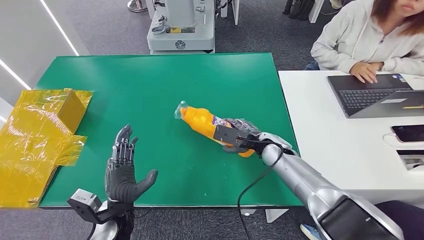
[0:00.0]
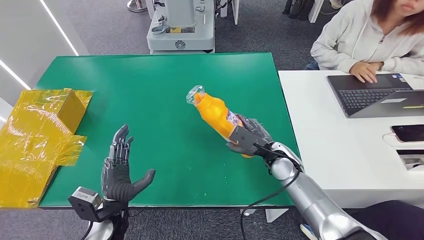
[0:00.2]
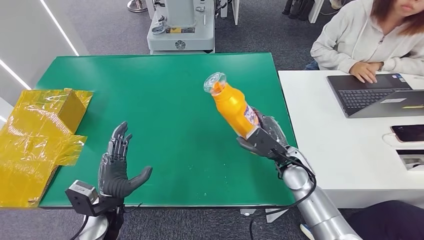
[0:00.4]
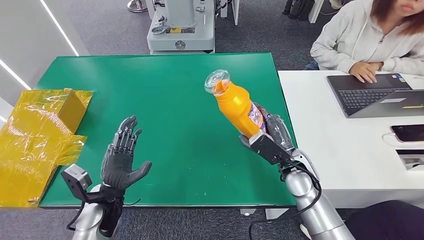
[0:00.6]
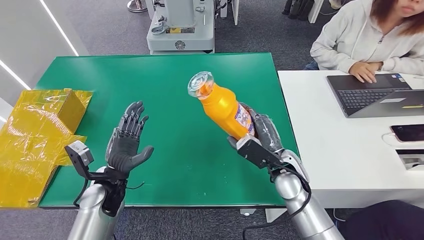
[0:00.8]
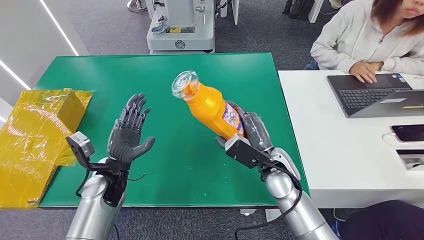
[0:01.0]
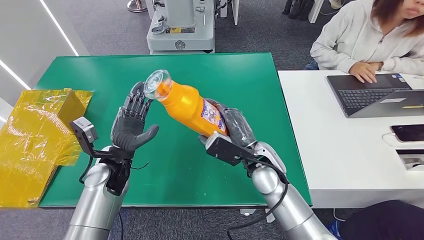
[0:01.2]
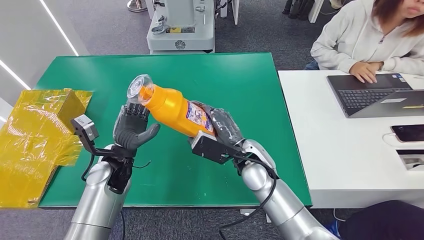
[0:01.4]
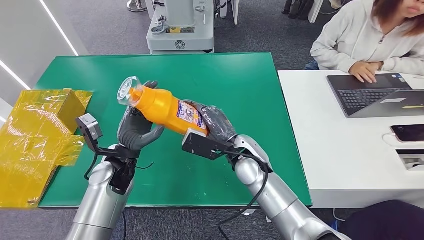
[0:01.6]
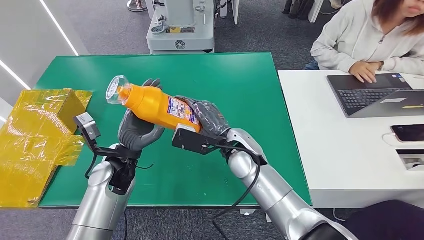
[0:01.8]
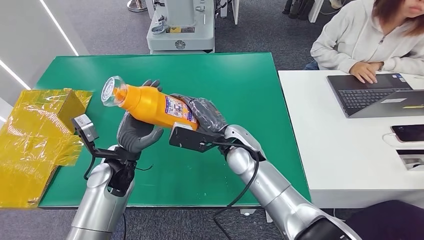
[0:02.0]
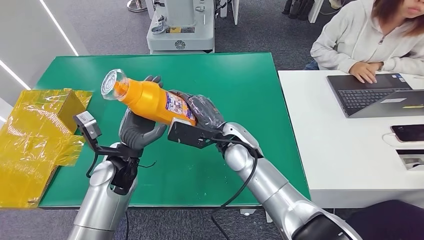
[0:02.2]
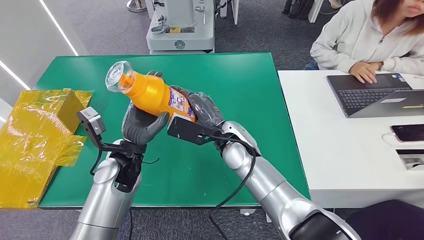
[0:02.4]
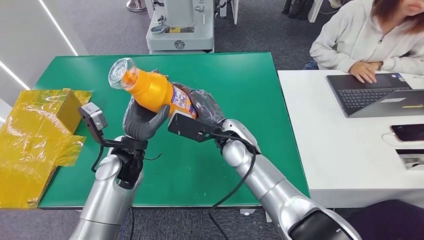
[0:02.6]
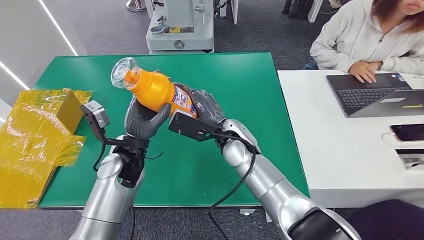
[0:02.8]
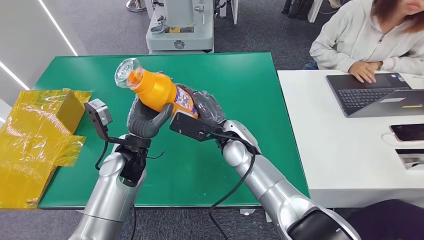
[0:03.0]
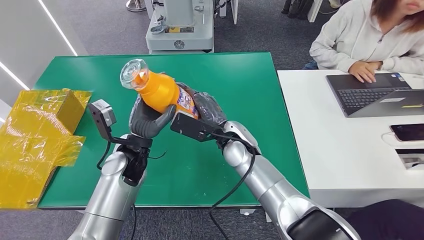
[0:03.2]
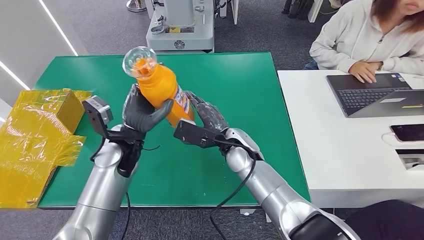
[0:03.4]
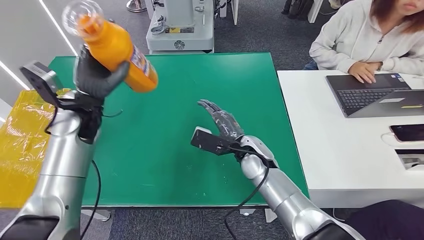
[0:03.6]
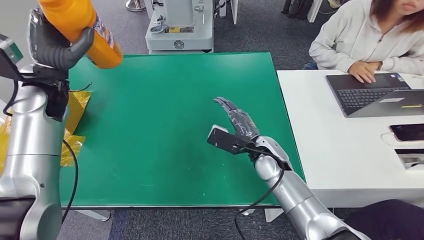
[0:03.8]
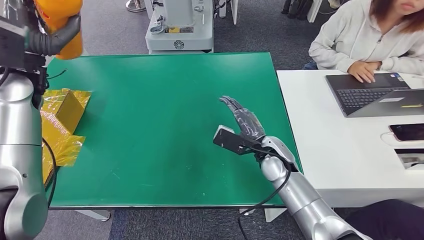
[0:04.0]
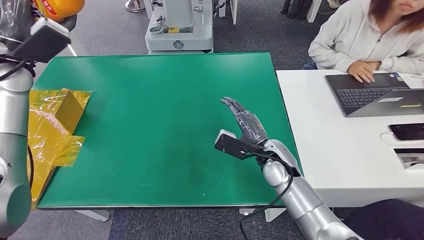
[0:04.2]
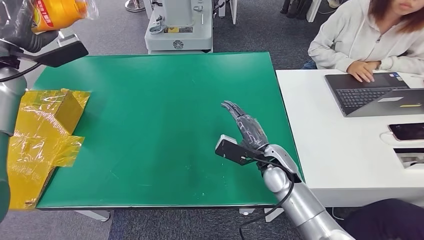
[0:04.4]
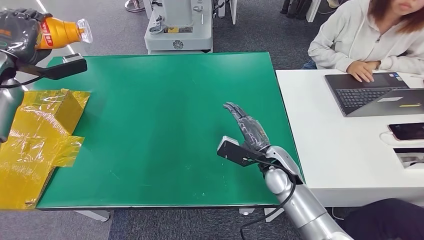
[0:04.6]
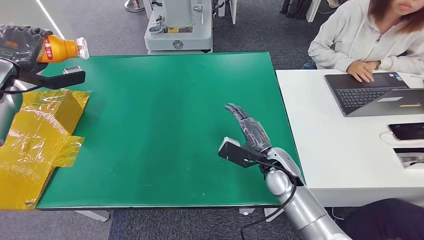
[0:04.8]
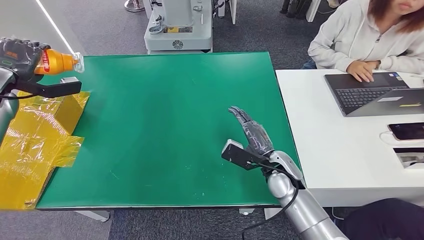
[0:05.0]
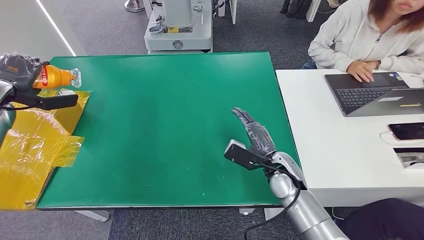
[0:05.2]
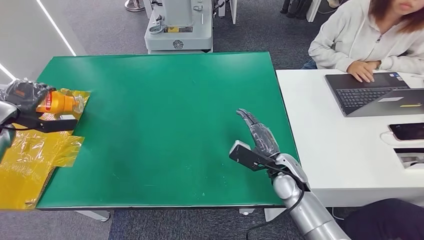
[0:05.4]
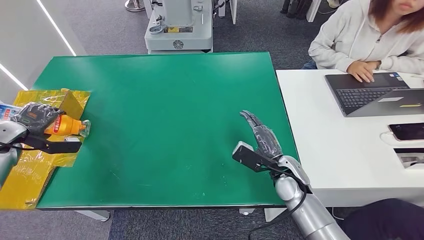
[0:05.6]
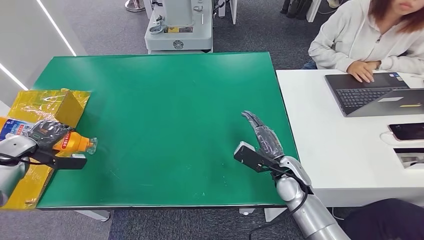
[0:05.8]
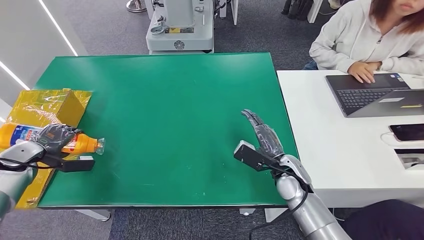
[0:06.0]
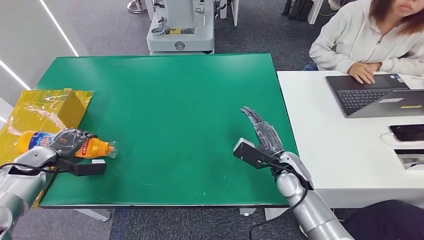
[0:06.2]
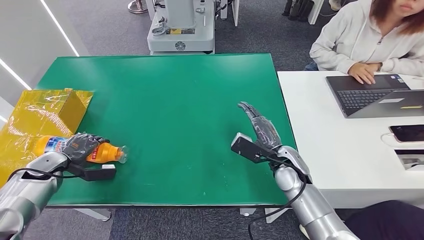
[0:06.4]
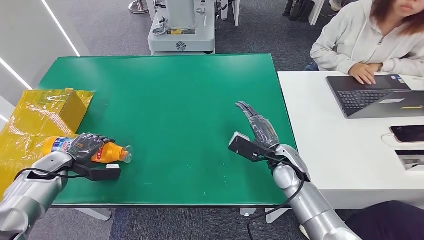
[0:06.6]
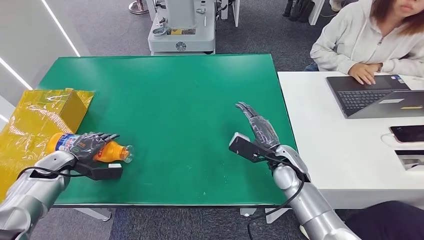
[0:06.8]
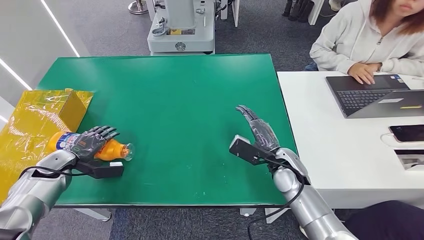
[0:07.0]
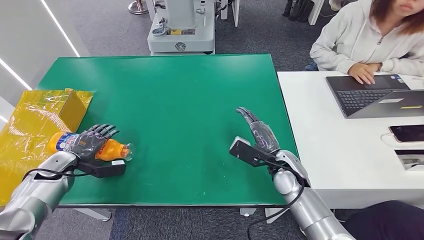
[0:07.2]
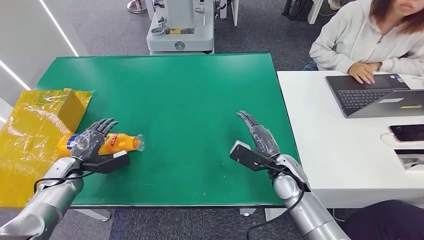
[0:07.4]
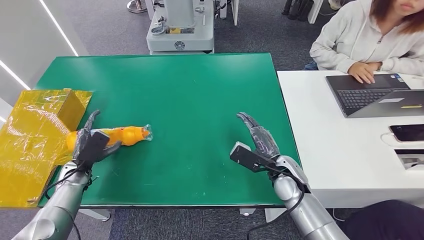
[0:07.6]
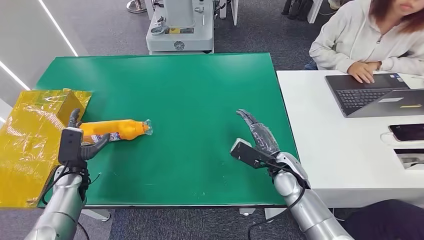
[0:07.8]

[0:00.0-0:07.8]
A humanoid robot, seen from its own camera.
Step, 0:01.4 to 0:07.6: Turn the bottle to the front side.
0:00.0 to 0:01.6: The right hand moves to the left, upward and backward, roughly 15 cm, while the left hand heads forward and upward, covering approximately 15 cm.
0:01.6 to 0:03.2: The left hand moves roughly 5 cm.
0:06.2 to 0:07.8: The left hand moves to the right and downward, some 15 cm.

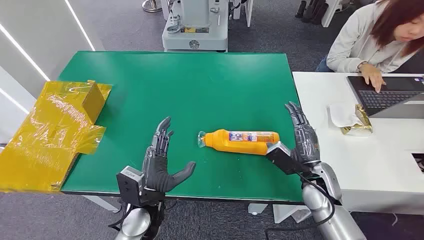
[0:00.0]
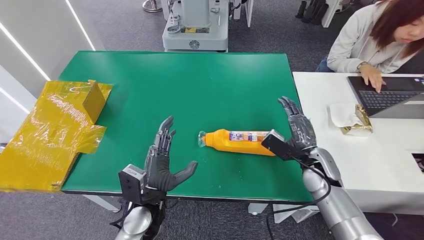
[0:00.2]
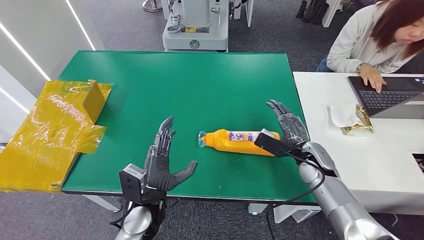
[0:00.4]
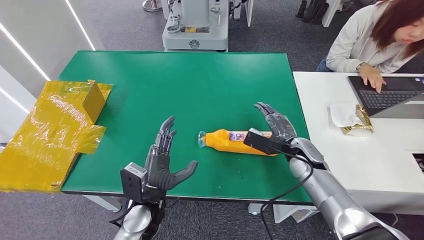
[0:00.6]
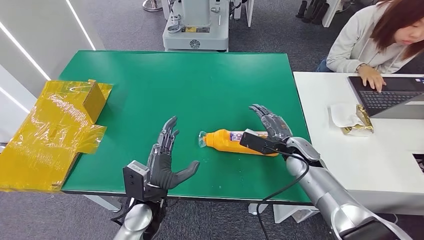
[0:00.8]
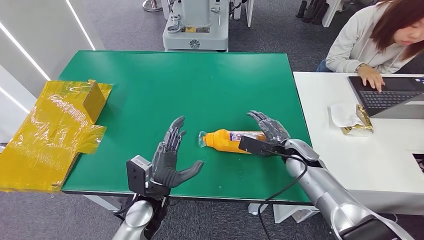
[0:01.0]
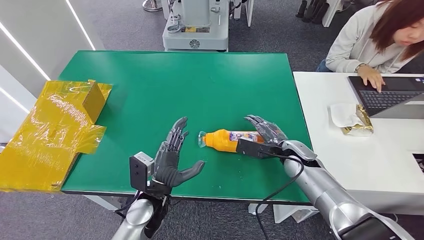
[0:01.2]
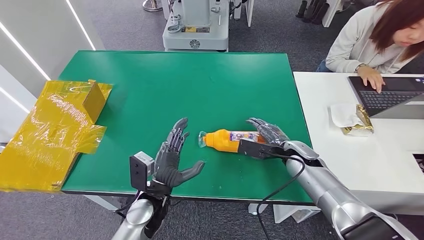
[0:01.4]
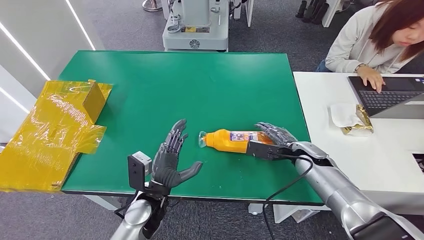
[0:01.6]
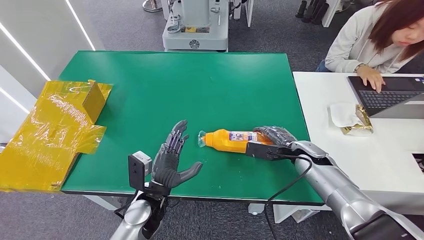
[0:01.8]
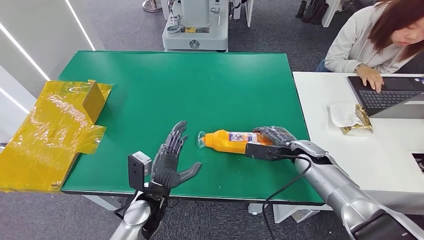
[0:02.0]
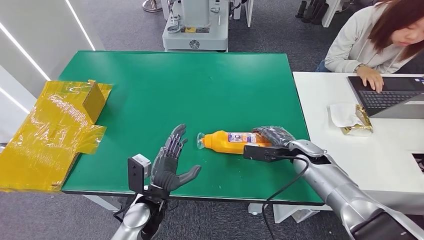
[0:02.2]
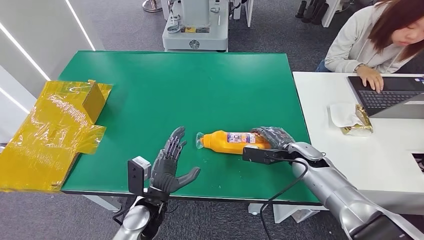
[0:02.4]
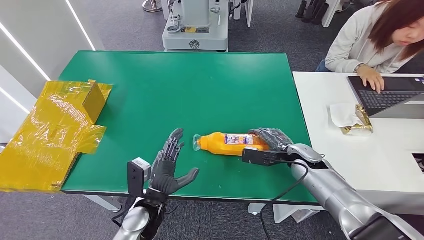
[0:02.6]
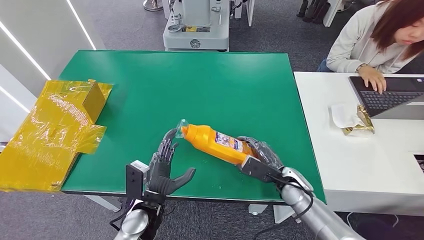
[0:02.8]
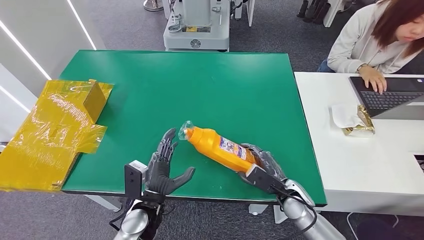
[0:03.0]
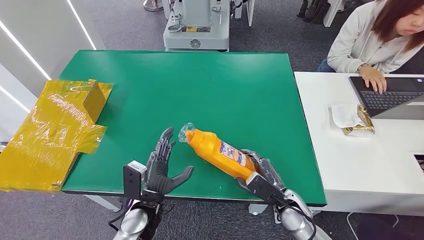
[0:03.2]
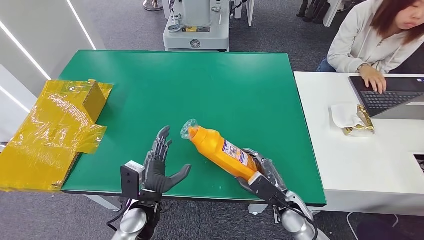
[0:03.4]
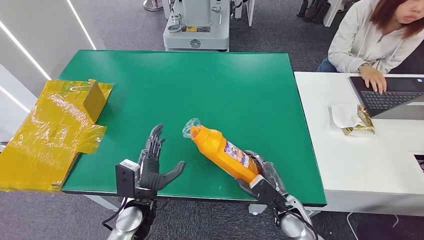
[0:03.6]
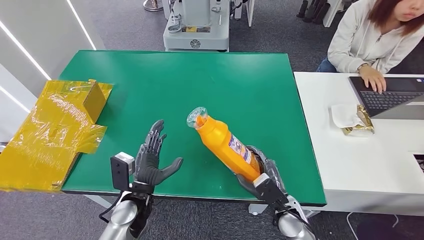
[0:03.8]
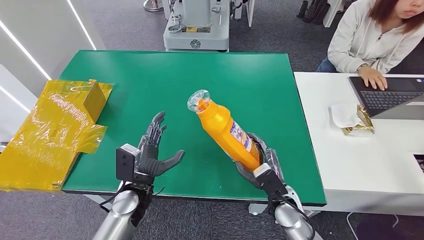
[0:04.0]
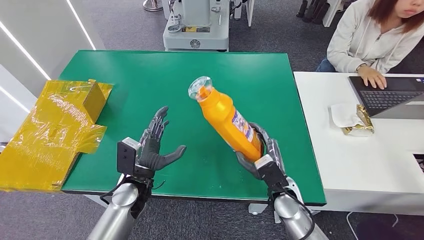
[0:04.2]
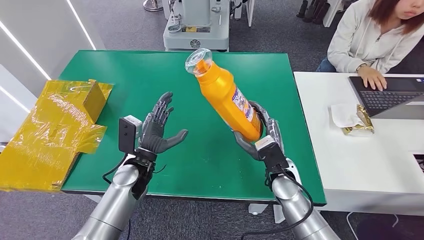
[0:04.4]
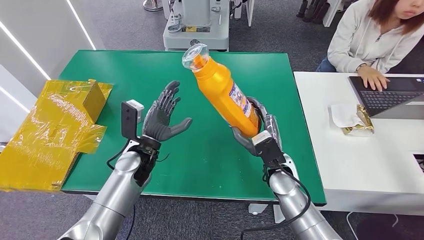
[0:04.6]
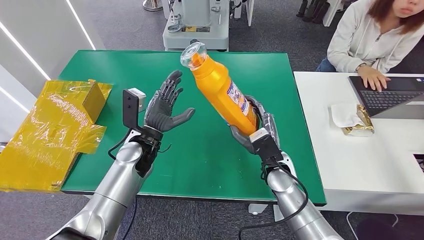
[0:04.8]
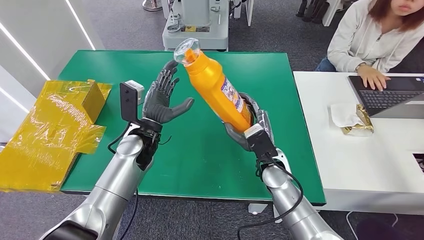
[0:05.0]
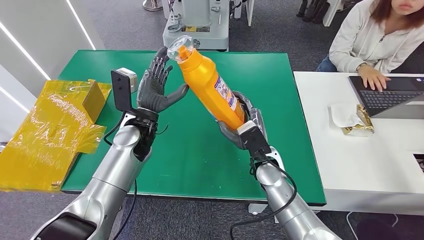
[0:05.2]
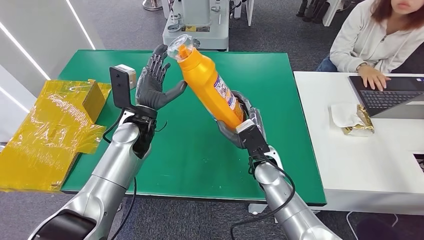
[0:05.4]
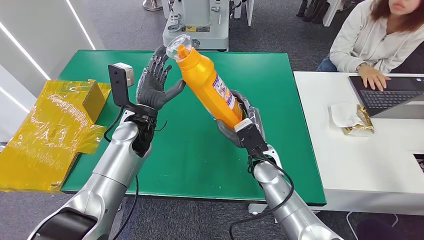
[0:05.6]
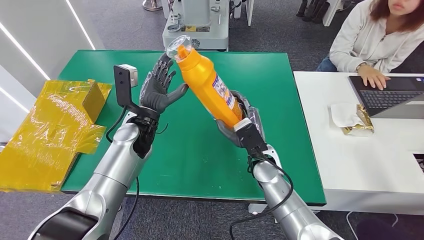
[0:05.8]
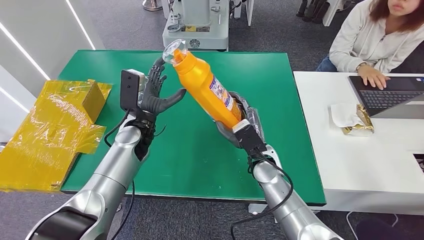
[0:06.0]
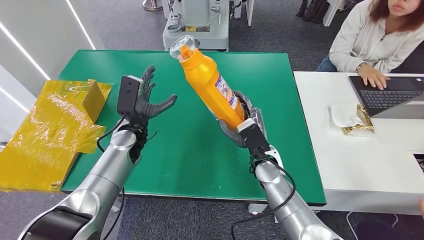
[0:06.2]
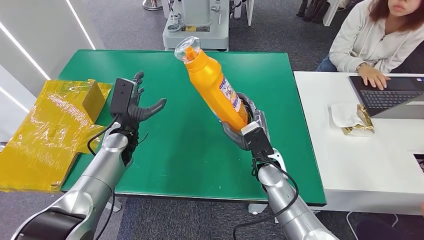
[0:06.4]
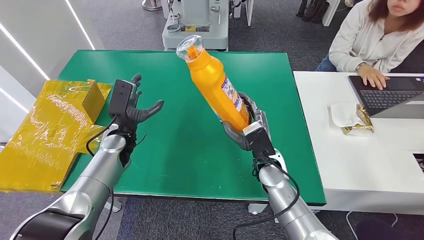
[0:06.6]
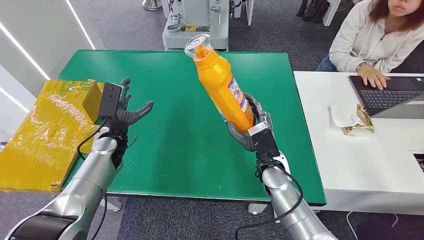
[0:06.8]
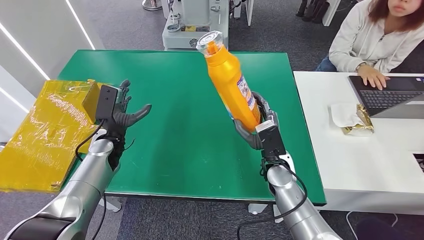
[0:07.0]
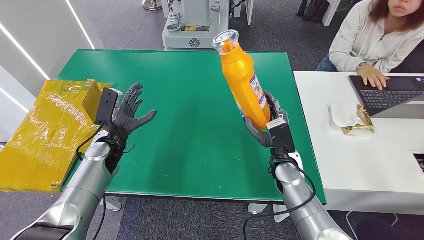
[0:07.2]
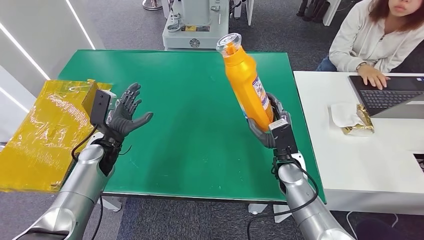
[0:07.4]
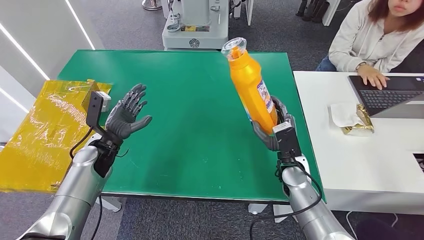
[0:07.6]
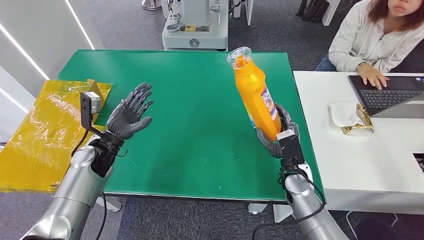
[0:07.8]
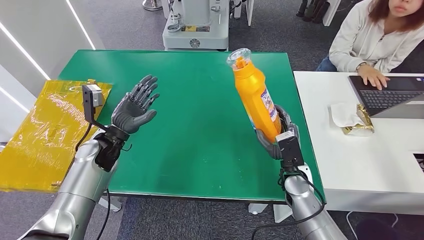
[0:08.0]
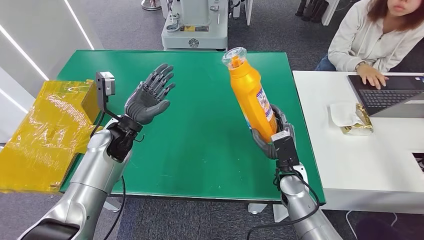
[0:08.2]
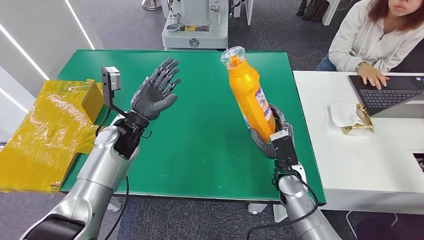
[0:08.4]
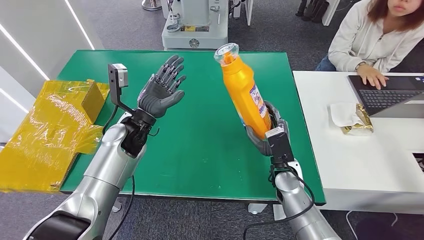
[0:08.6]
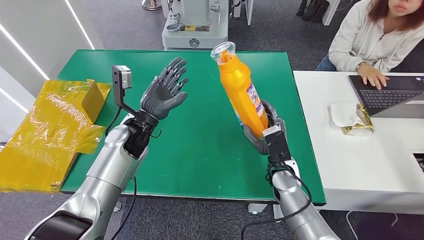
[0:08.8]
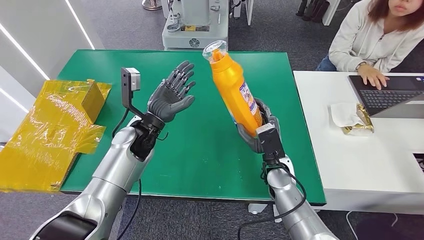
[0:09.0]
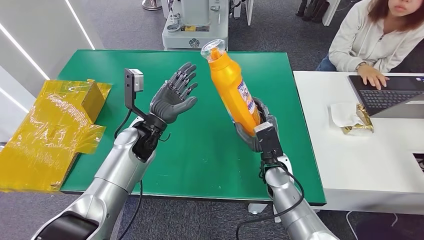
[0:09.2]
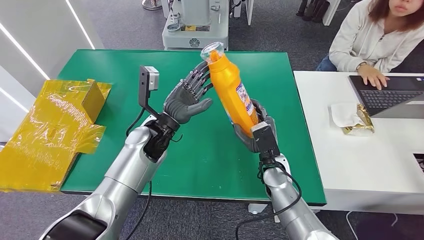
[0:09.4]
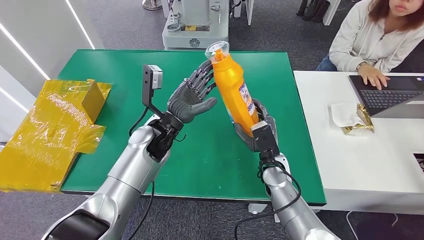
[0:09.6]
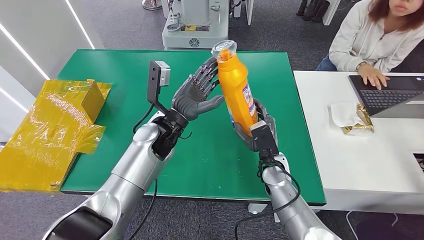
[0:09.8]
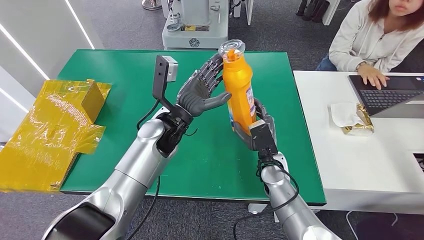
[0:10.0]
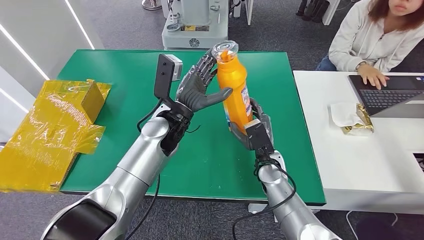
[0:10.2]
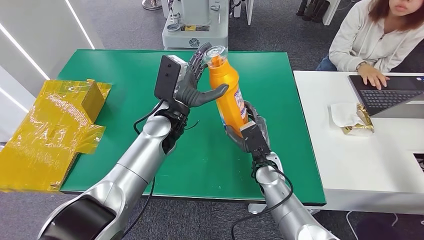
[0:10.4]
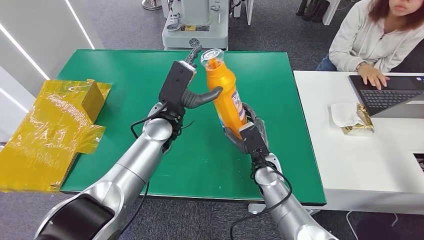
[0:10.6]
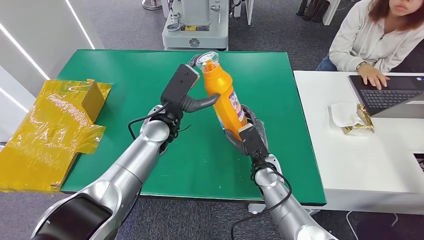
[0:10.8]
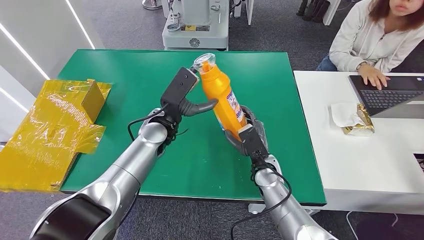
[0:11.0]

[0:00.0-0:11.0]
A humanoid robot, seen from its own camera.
Step, 0:00.0 to 0:03.2: Pick up the bottle from the table.
0:01.6 to 0:03.2: The right hand travels backward, downward and to the left by some 15 cm.
0:04.8 to 0:06.2: The left hand shifts by some 5 cm.
